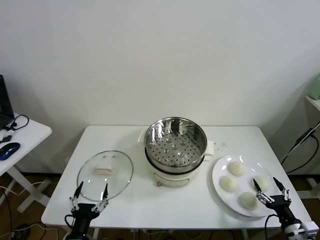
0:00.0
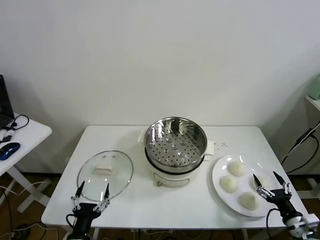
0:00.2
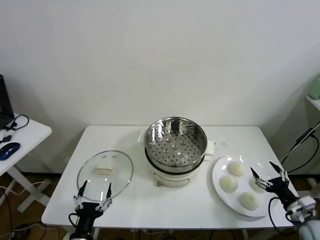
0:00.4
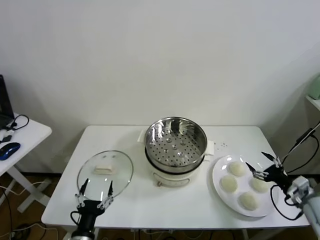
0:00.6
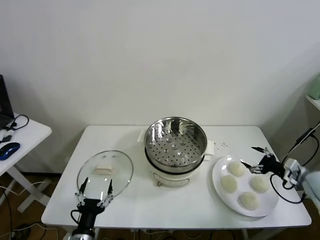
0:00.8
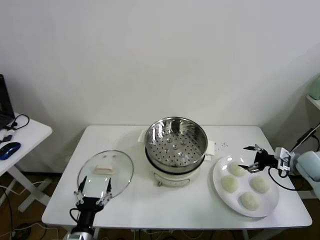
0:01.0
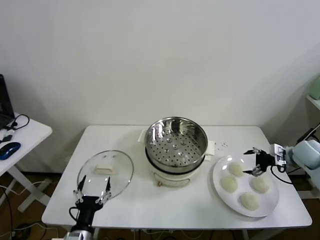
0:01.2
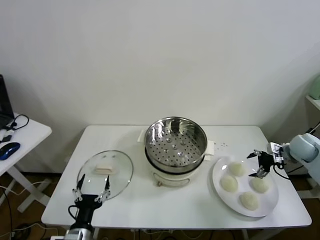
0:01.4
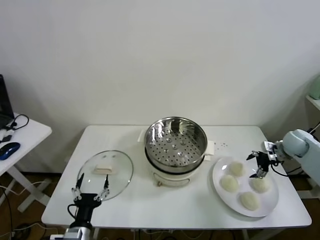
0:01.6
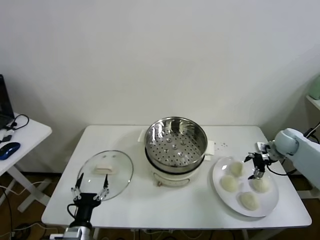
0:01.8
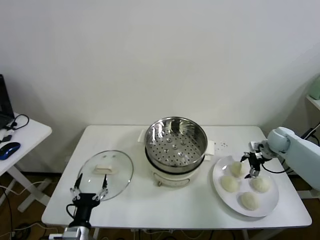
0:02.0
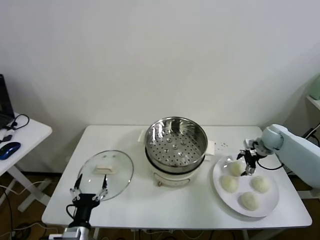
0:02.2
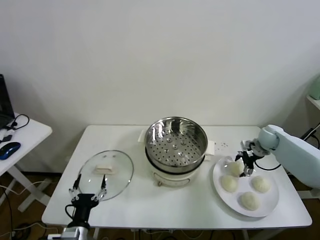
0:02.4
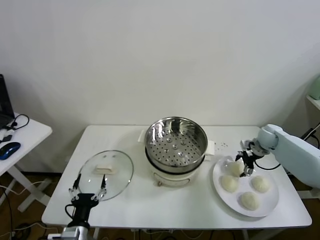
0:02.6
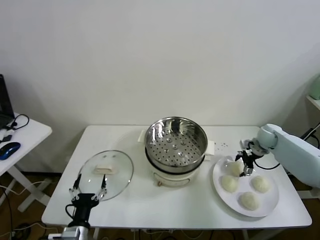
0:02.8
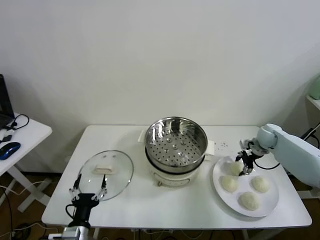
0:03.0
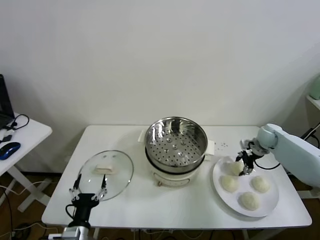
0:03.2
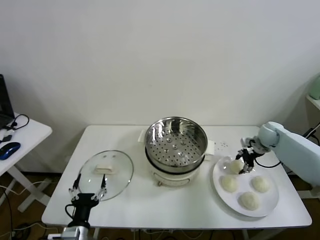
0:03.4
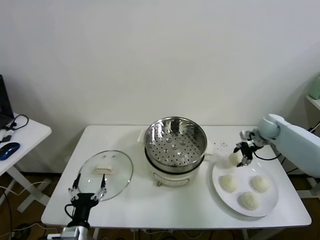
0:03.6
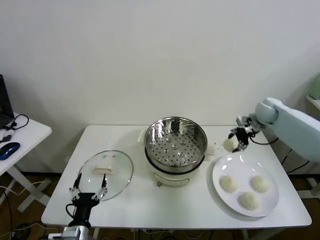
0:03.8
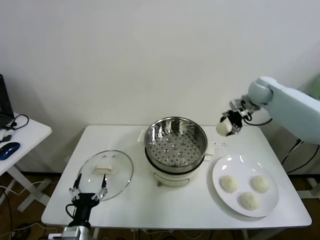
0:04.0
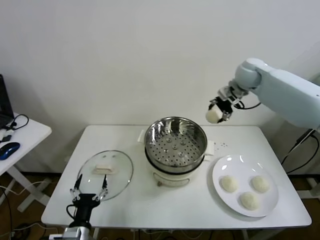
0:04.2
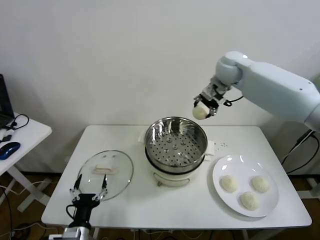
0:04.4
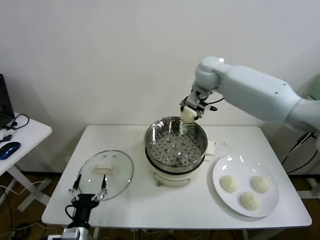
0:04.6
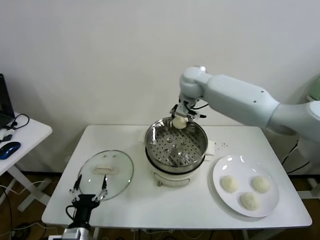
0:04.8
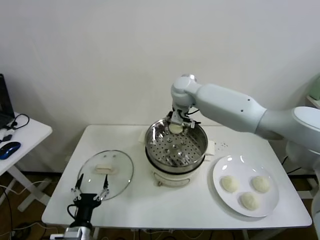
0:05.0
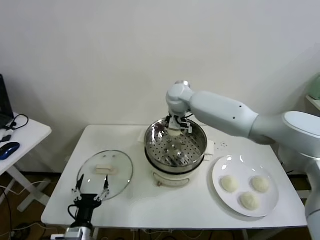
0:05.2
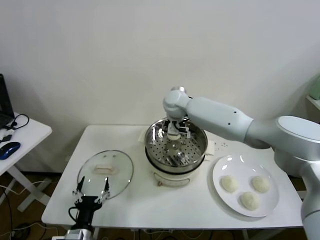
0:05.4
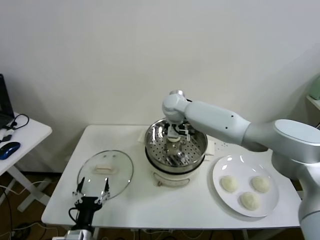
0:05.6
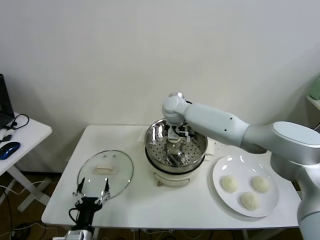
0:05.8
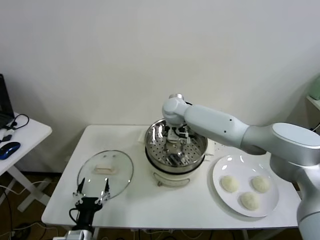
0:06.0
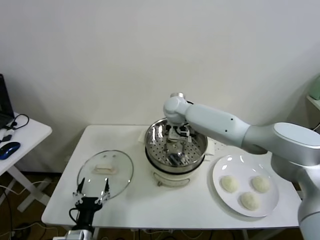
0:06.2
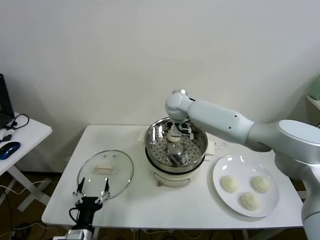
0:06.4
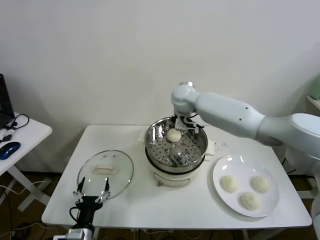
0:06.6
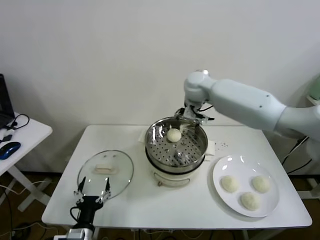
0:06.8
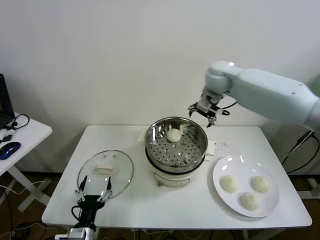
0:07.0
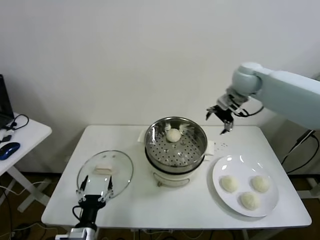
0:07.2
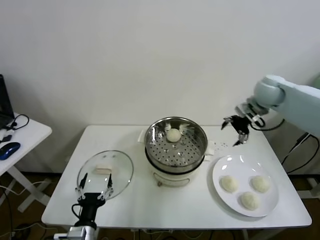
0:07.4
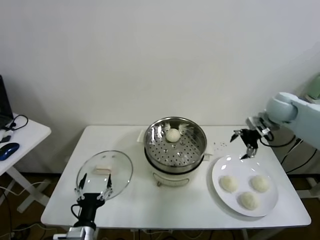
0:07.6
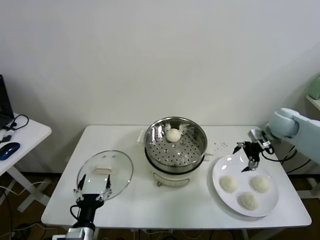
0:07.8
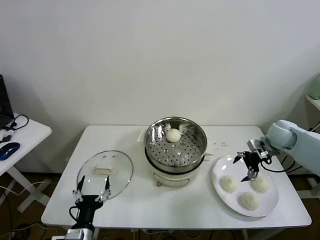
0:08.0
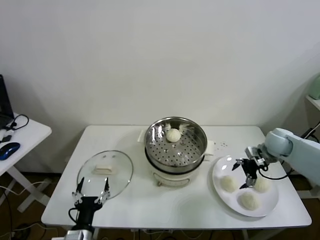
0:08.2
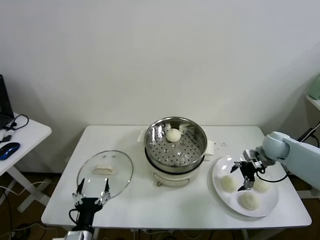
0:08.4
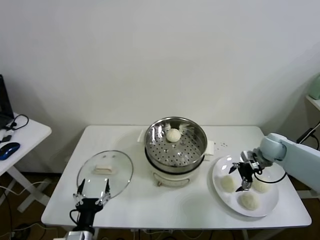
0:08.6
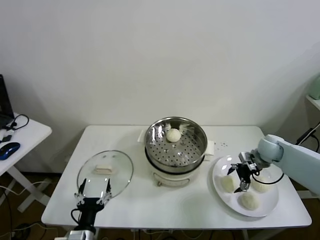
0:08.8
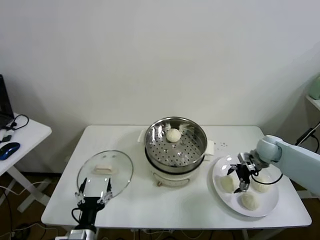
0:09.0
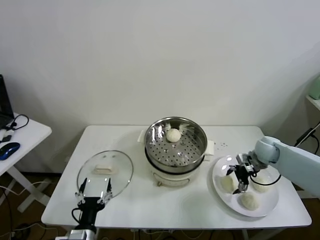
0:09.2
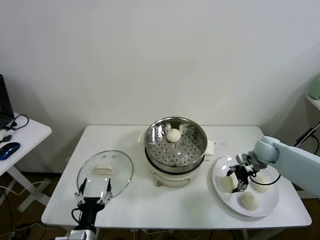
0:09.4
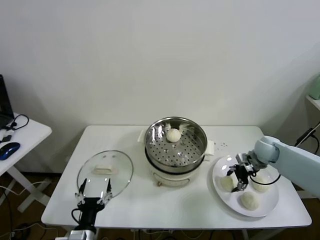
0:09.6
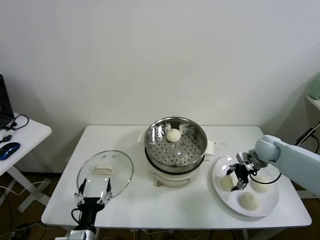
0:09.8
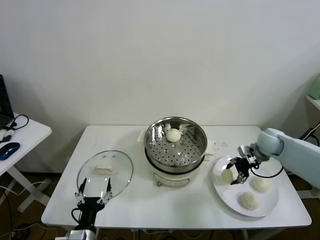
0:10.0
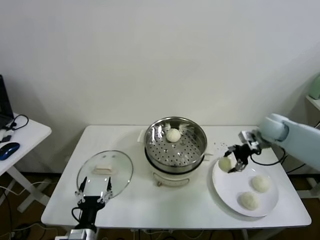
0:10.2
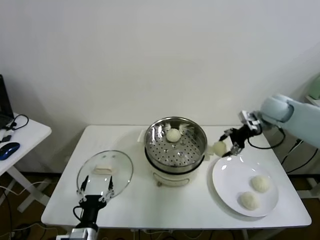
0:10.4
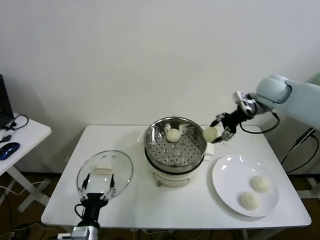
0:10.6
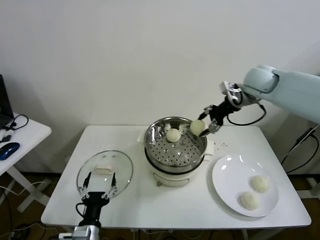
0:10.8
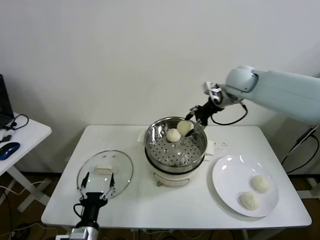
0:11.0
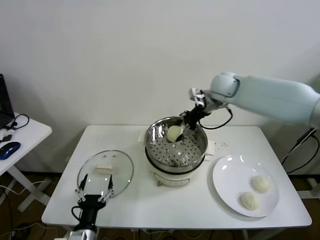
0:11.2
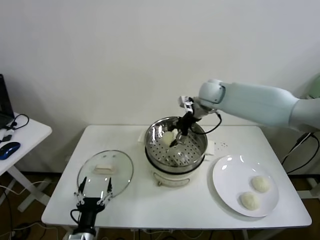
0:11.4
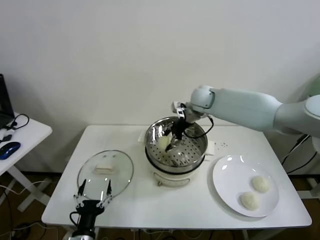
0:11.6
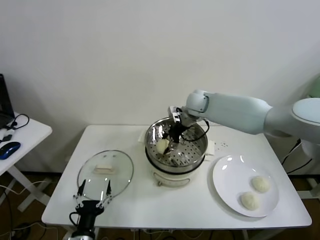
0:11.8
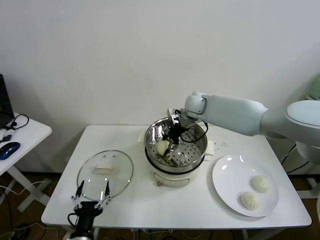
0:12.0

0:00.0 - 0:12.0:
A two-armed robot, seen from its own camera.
Task of the whole recording: take steamed baozi put them in steamer.
Step, 0:00.0 - 0:03.0: Grasp the baozi in the plate with right gripper.
Step, 0:03.2 - 0:06.2: Place the baozi on the steamer with right gripper.
Step, 0:06.6 - 0:09.6: Grasp the baozi in the plate with right gripper.
0:01.6 - 0:03.0: The right gripper goes about 5 cm to the left, and closes up.
0:03.0 - 0:04.4: The right gripper is displaced upward and to the left by roughly 35 cm.
0:04.4 - 0:06.0: The right gripper heads downward and to the left, covering roughly 20 cm, and opens.
0:06.0 - 0:07.6: The right gripper goes roughly 35 cm to the right.
0:07.6 - 0:09.0: The right gripper goes roughly 15 cm downward.
0:09.0 - 0:10.4: The right gripper travels upward by roughly 20 cm, and closes its fingers.
0:10.4 - 0:12.0: The right gripper moves to the left, roughly 25 cm.

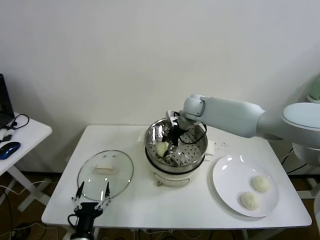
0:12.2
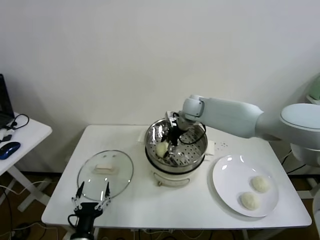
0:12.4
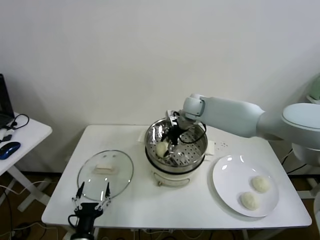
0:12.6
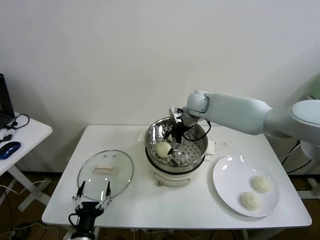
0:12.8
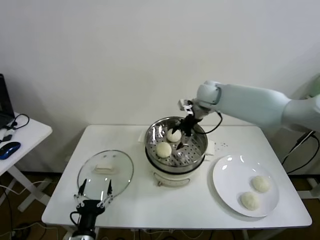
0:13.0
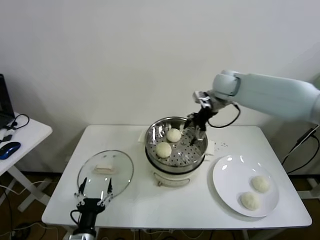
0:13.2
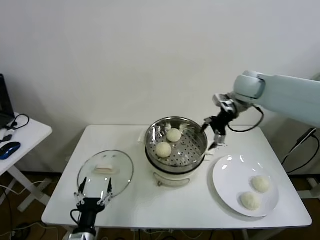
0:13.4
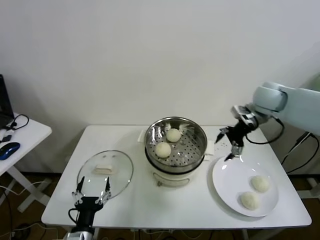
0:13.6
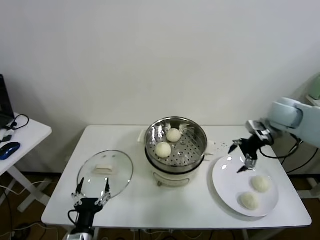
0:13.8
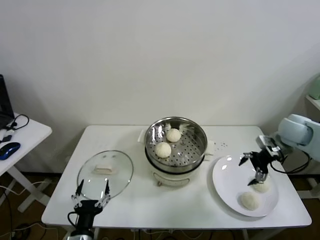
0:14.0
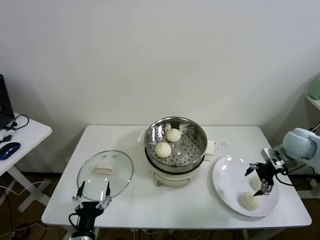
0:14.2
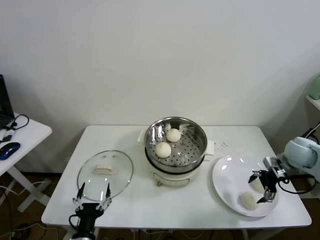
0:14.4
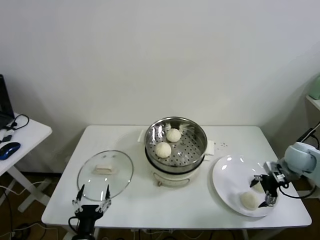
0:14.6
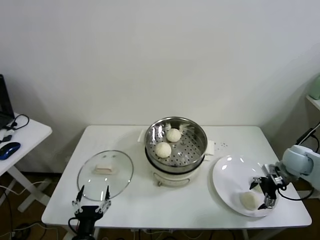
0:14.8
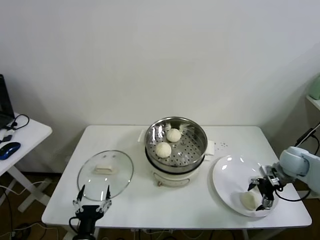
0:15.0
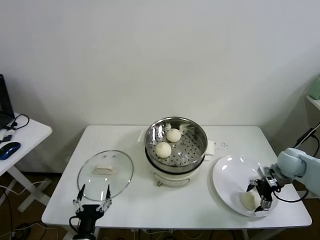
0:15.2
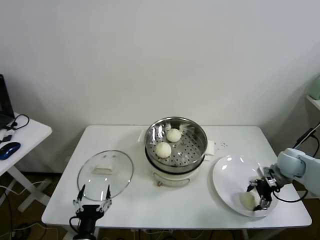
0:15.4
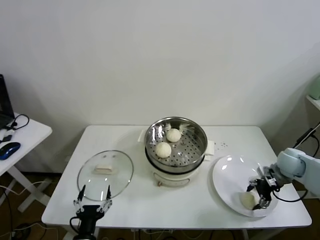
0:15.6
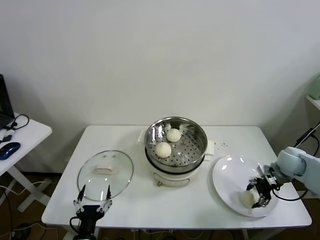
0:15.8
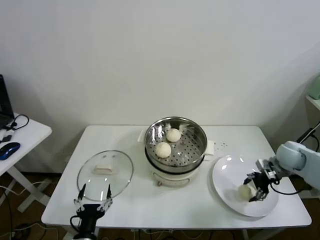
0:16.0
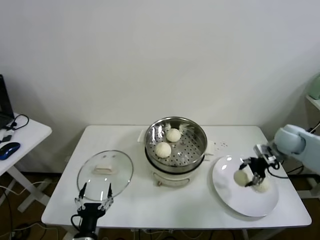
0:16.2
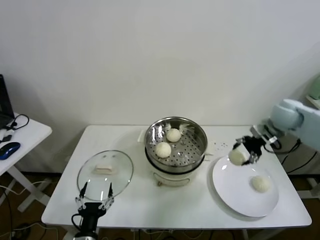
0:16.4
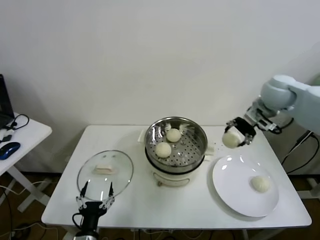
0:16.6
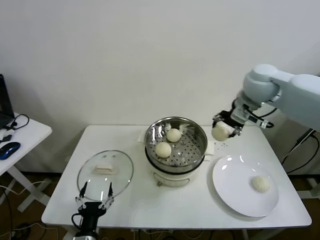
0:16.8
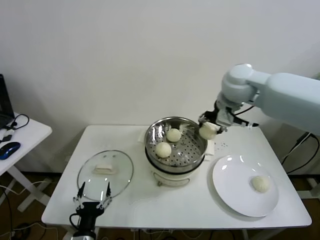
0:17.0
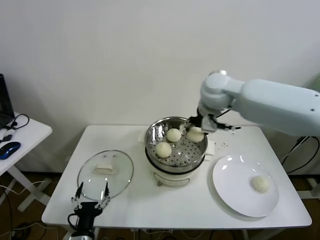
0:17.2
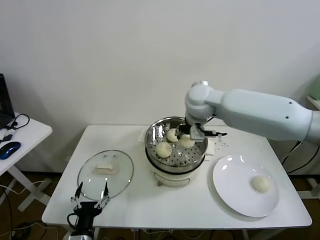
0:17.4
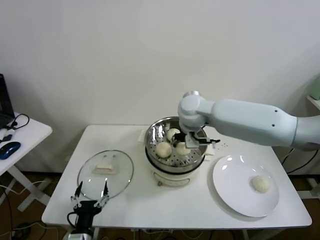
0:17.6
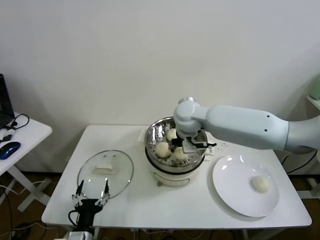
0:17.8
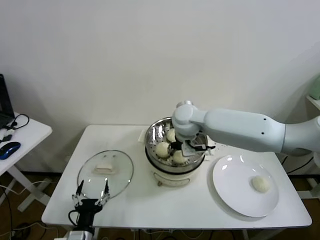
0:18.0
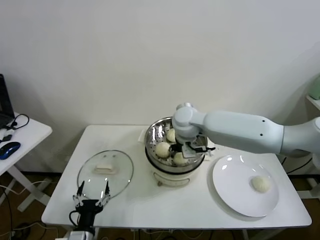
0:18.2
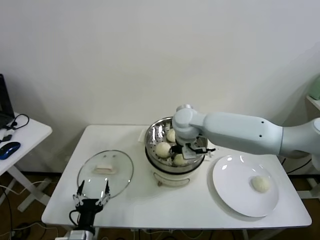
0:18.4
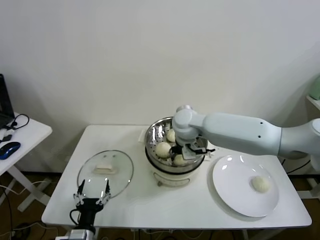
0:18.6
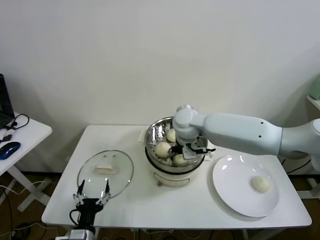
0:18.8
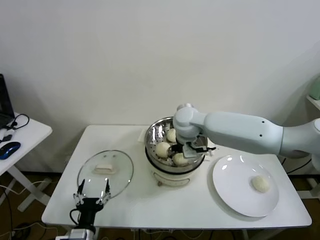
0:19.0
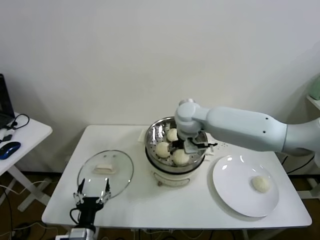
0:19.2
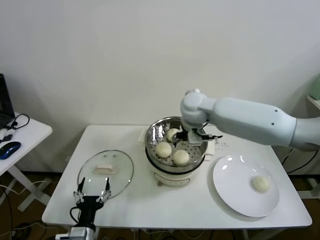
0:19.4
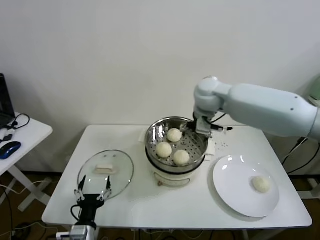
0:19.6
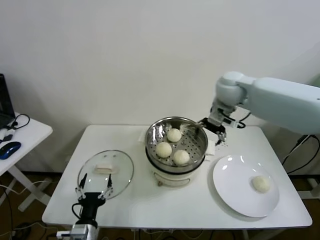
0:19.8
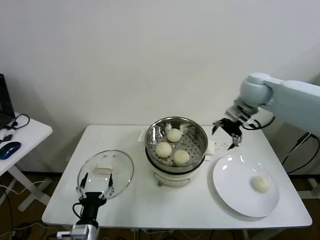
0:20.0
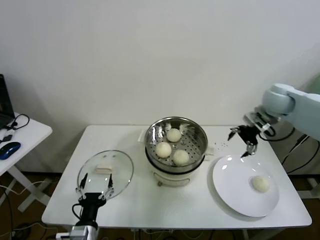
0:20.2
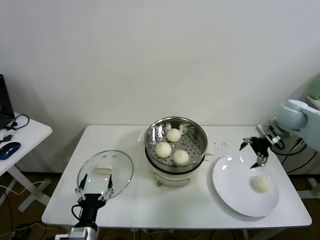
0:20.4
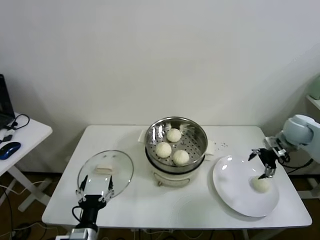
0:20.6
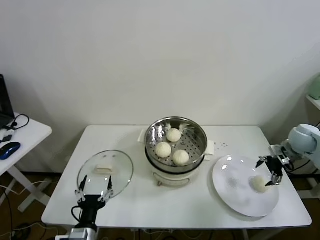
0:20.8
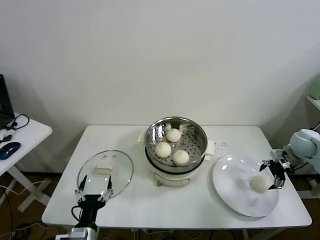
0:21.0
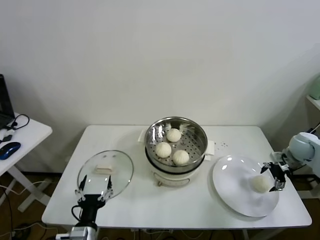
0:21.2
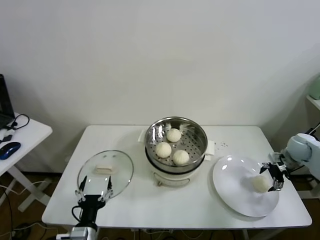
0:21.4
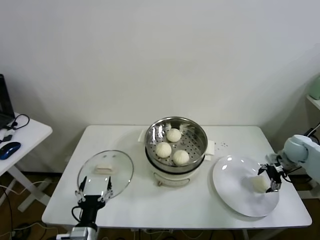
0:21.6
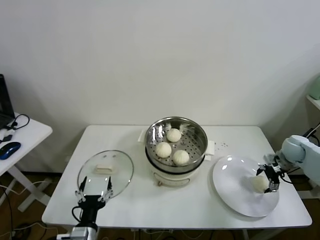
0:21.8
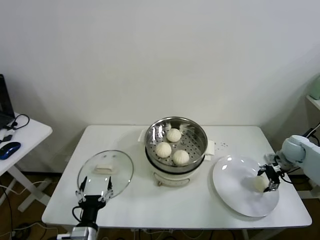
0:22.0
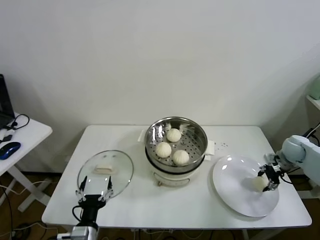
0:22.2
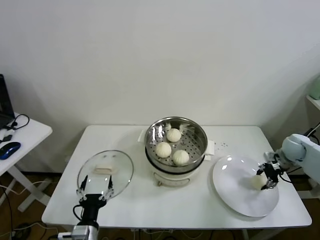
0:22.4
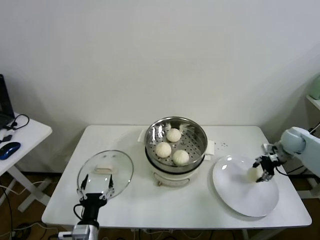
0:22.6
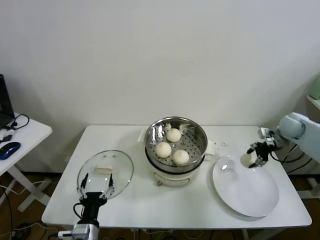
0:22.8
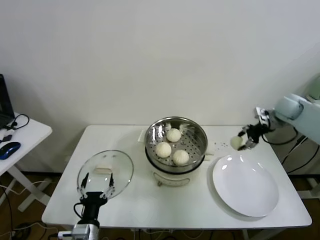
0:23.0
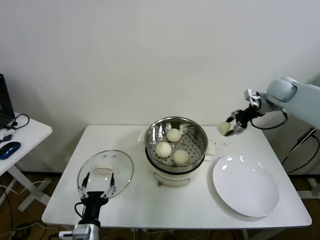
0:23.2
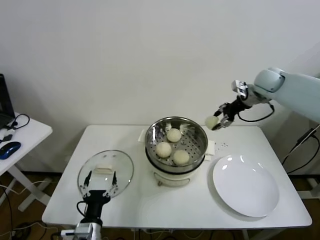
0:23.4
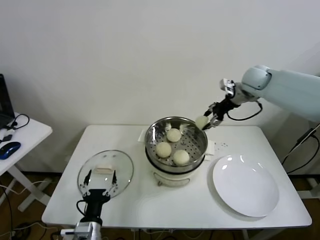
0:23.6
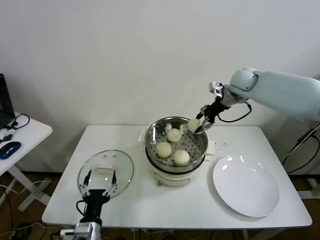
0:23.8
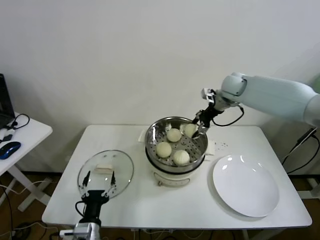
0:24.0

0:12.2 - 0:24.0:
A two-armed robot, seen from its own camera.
Task of the whole recording: take steamed baozi put them in steamer.
Step, 0:12.8 - 0:15.4: Grasp the baozi in the plate with right gripper.
Step, 0:15.8 - 0:18.8: Place the baozi on the steamer with right gripper.
Step, 0:19.0 - 0:22.0: Grasp the baozi in the plate with right gripper.
0:12.2 - 0:13.6: The right gripper shifts some 25 cm to the right and upward, and opens.
0:13.6 - 0:15.2: The right gripper shifts some 25 cm downward, to the right and backward.
0:15.2 - 0:16.6: The right gripper goes about 25 cm upward and to the left, and closes its fingers.
0:16.6 - 0:18.2: The right gripper goes some 25 cm to the left.
0:18.2 - 0:19.6: The right gripper travels upward and to the right by some 10 cm, and opens.
0:19.6 - 0:21.0: The right gripper shifts roughly 40 cm to the right and downward.
0:21.0 - 0:22.6: The right gripper closes.
0:22.6 - 0:24.0: The right gripper moves to the left, upward and forward, roughly 30 cm.
